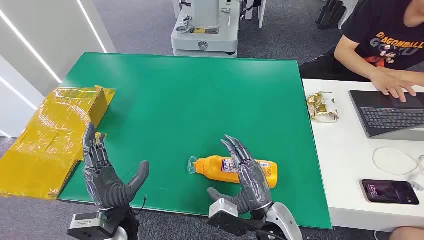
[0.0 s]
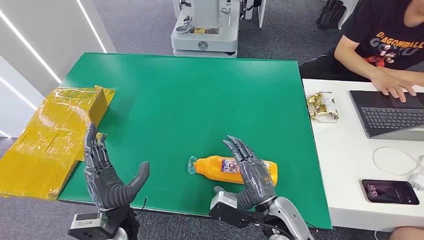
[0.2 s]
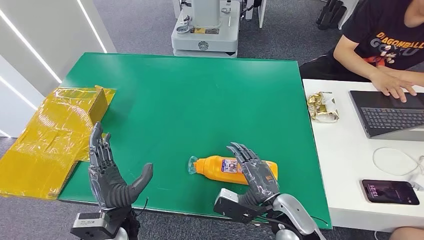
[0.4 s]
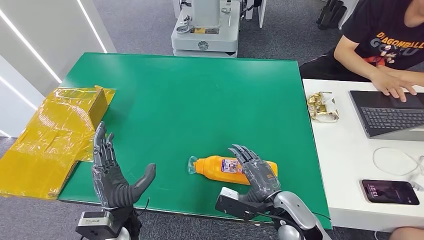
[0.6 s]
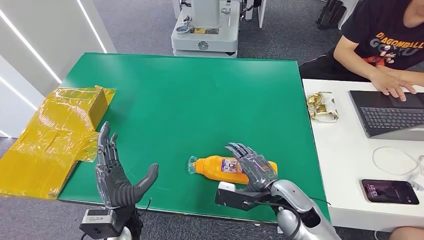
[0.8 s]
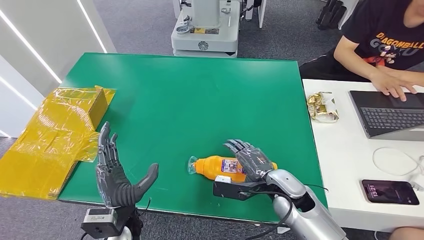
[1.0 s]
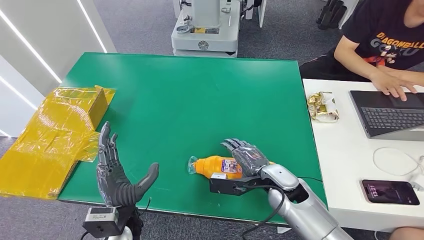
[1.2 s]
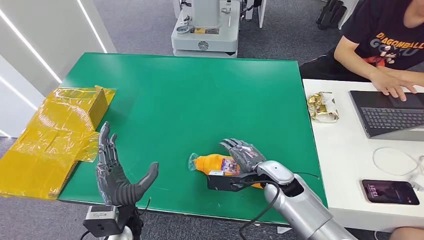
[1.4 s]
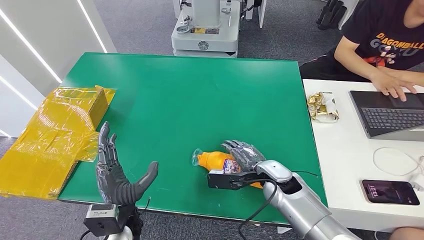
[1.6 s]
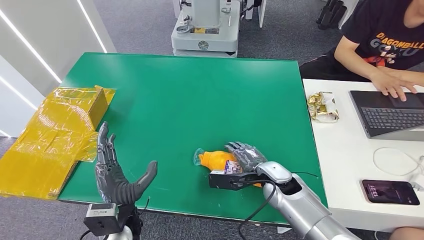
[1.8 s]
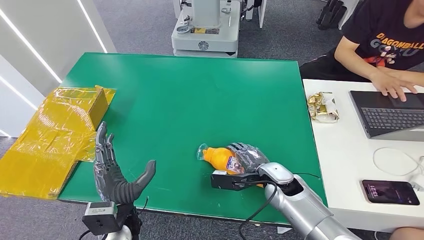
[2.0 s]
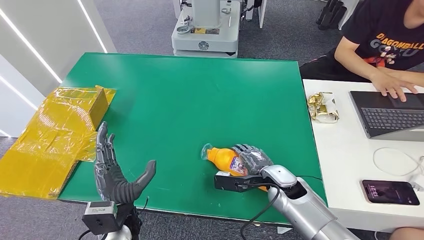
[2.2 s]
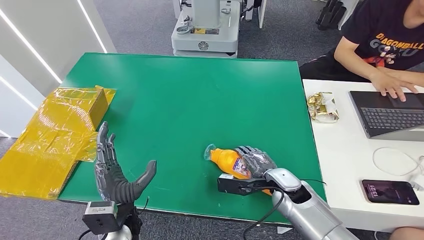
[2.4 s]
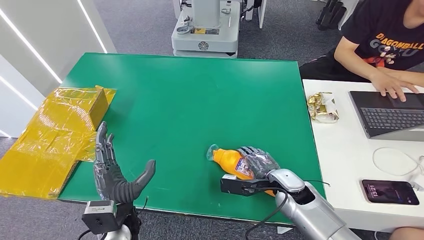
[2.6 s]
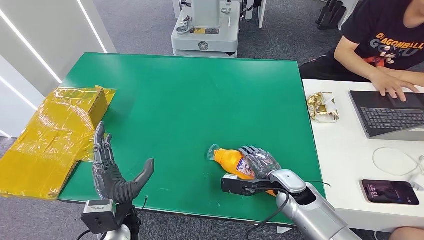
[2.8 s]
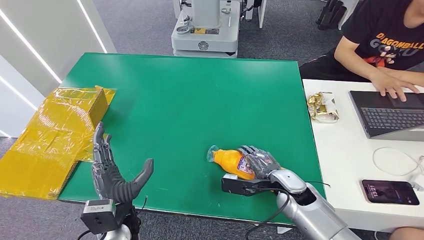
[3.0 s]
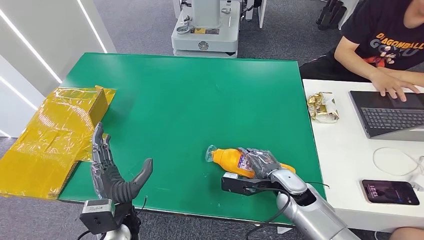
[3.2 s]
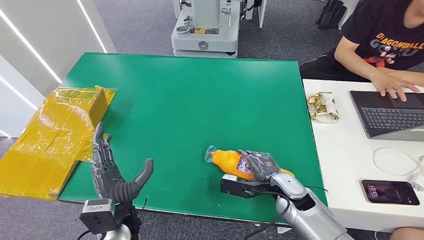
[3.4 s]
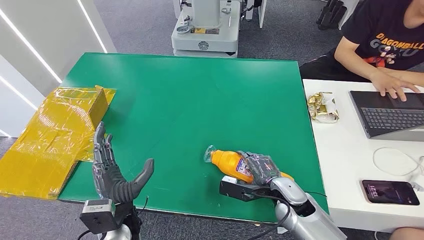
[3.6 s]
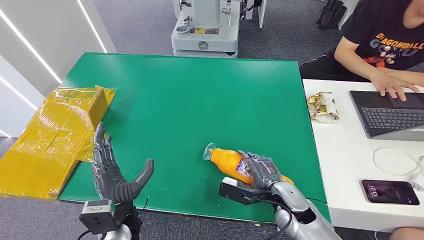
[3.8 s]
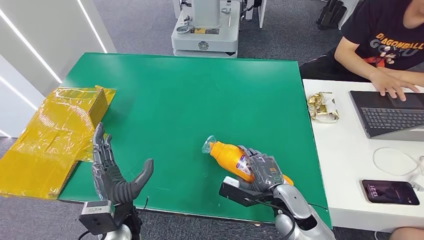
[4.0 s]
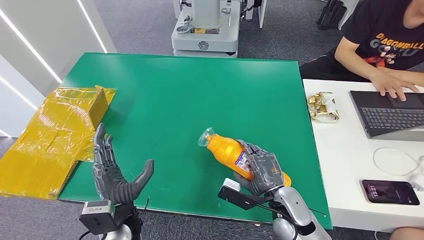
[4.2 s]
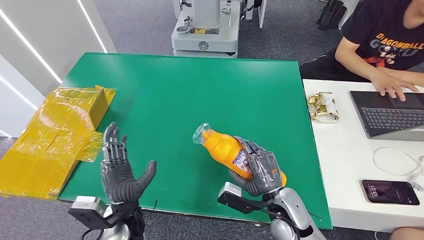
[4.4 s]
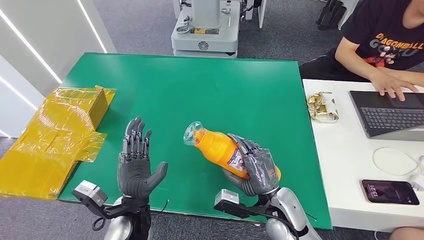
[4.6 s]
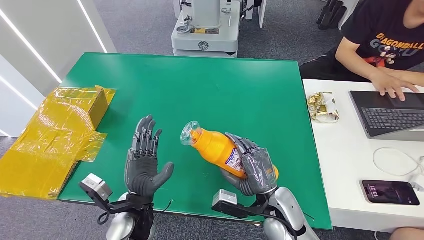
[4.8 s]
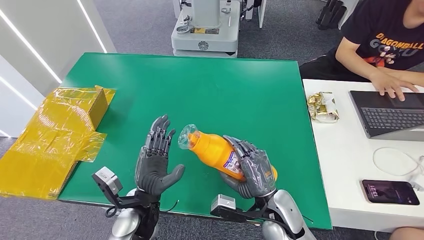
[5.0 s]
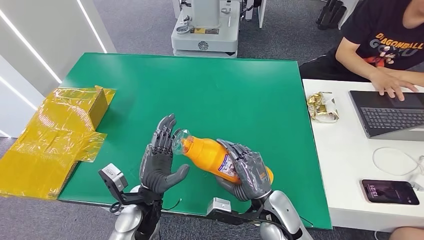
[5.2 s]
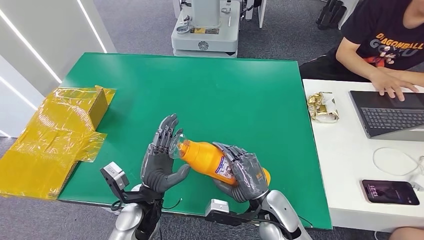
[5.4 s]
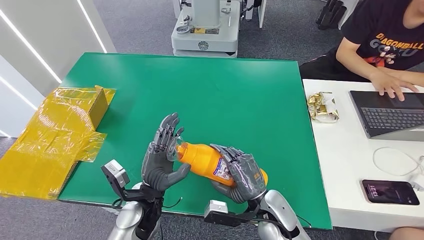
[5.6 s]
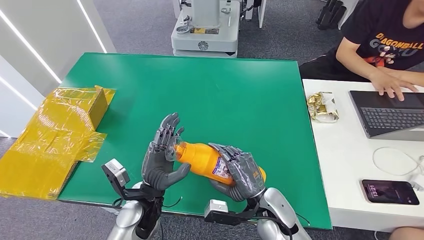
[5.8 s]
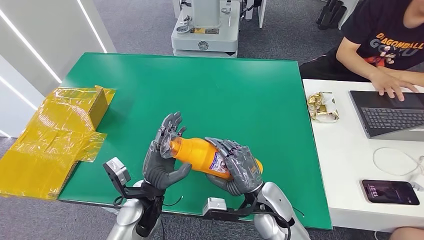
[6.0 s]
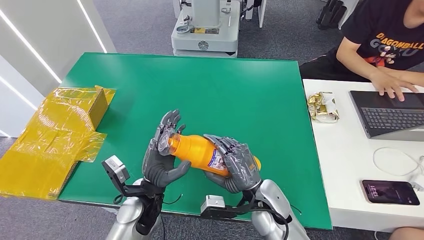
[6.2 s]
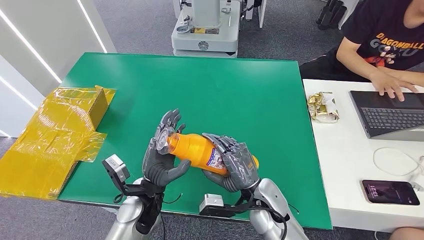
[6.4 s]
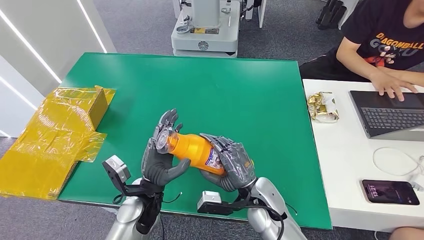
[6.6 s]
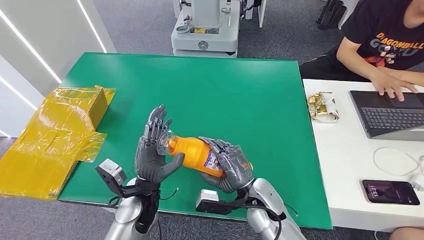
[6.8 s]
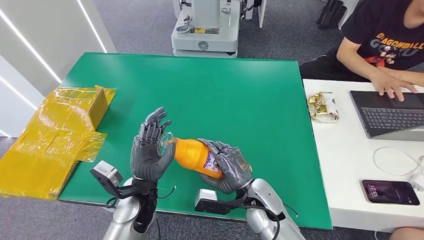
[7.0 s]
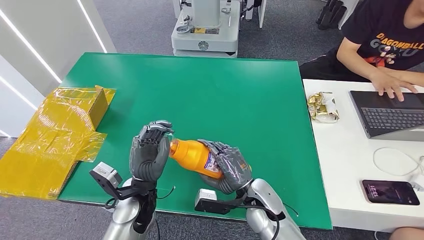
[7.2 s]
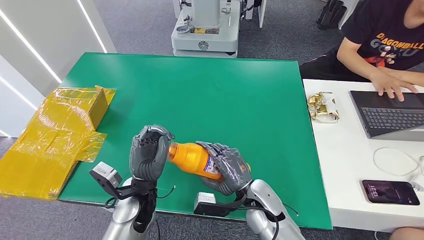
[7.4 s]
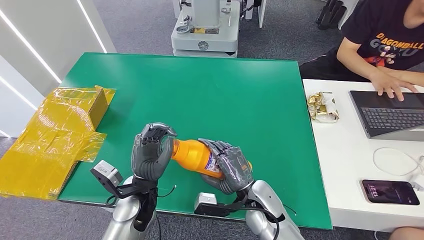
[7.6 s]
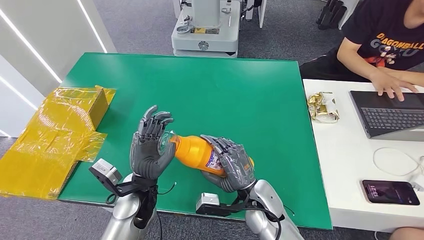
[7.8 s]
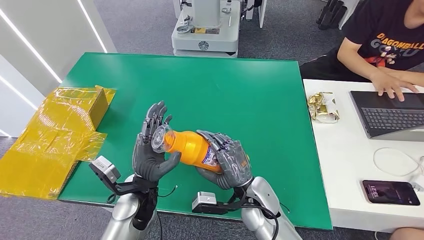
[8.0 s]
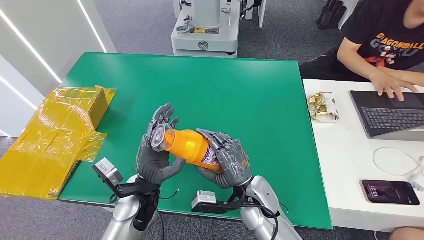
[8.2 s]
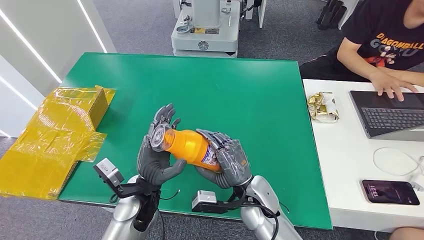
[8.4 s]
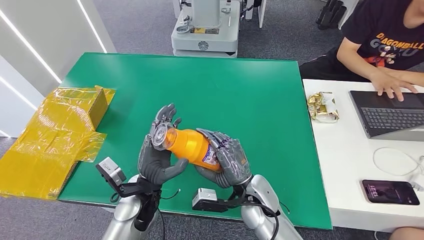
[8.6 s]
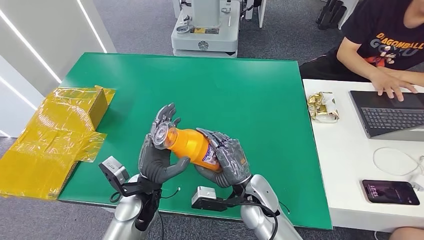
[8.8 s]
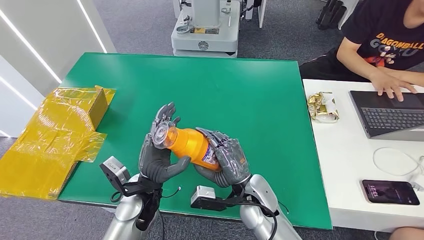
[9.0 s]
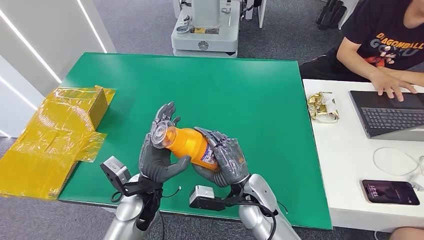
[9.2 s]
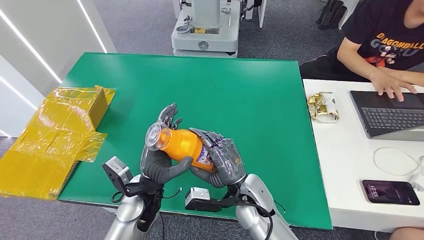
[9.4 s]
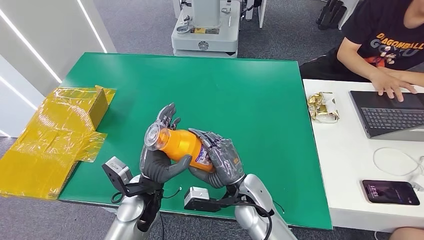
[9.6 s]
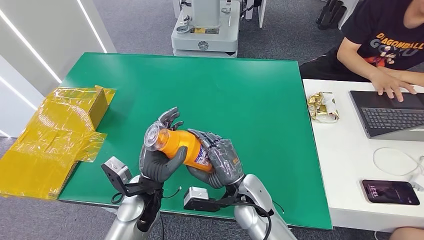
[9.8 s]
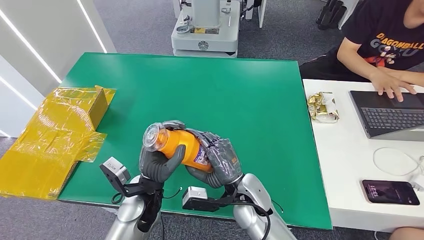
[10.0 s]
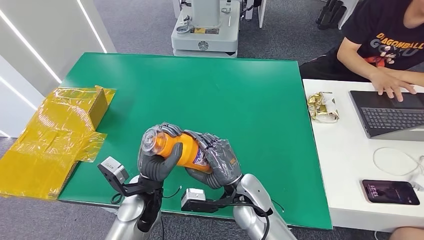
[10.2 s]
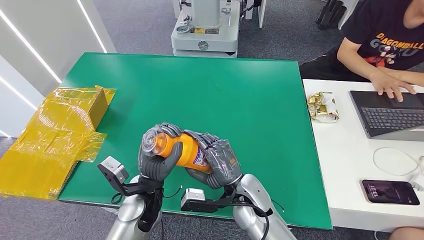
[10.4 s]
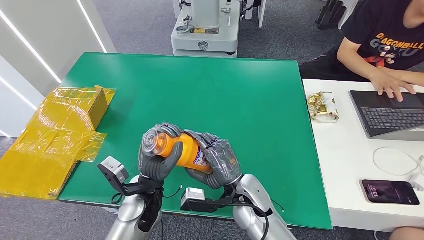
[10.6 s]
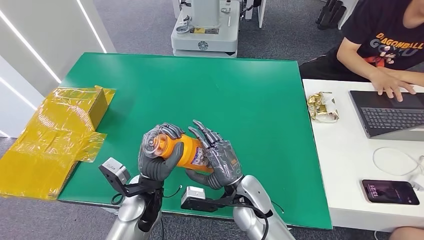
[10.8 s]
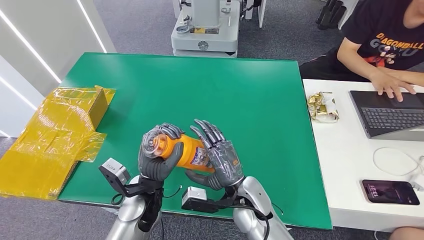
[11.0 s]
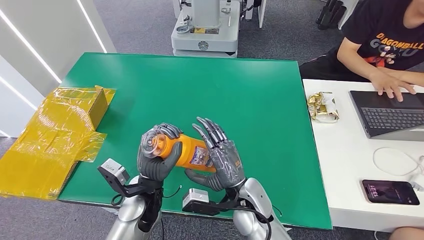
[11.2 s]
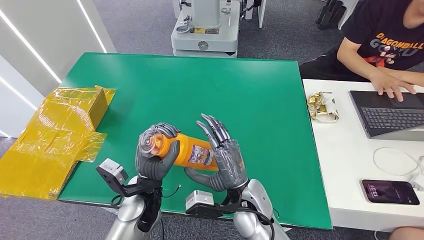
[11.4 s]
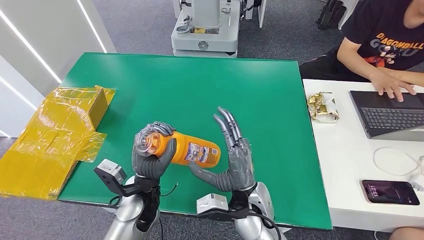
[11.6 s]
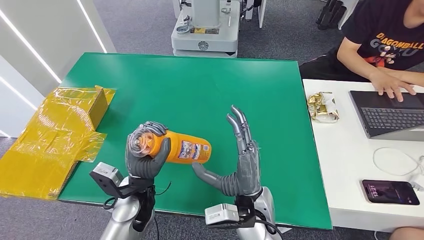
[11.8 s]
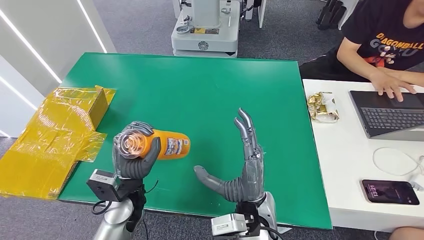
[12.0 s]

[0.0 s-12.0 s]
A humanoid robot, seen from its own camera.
Step, 0.0 to 4.8 s: Pick up the bottle from the table.
1.6 to 3.0 s: The hands move only a little.
3.0 to 4.4 s: The right hand goes approximately 5 cm backward.
4.4 to 6.0 s: The left hand ends up about 5 cm from where it was.
6.0 to 10.4 s: The hands move only a little.
10.4 to 12.0 s: The right hand changes place by roughly 5 cm.

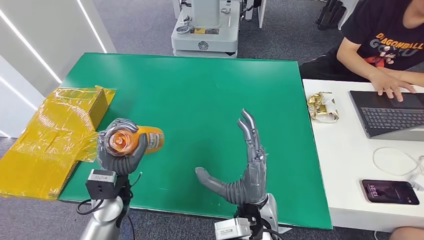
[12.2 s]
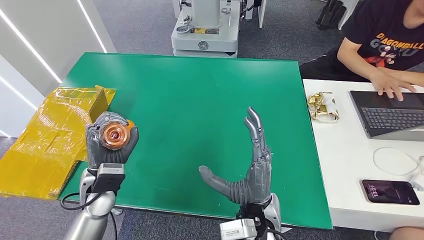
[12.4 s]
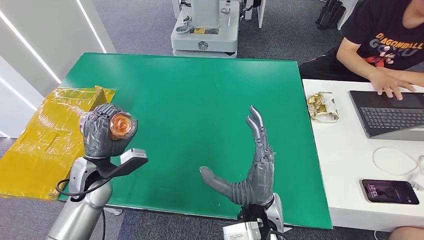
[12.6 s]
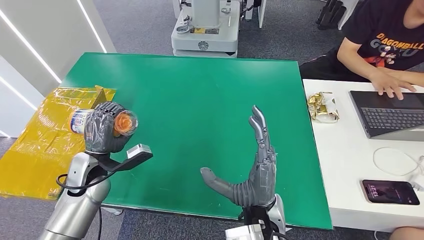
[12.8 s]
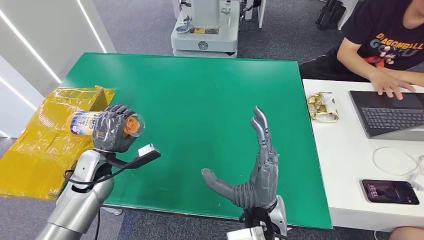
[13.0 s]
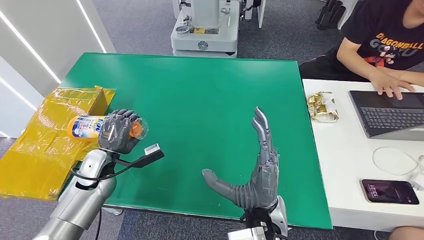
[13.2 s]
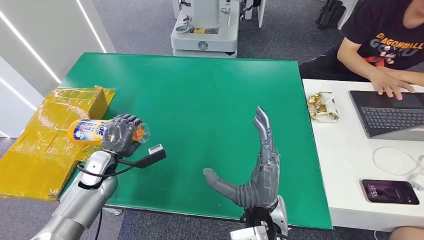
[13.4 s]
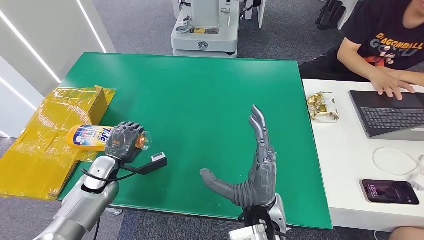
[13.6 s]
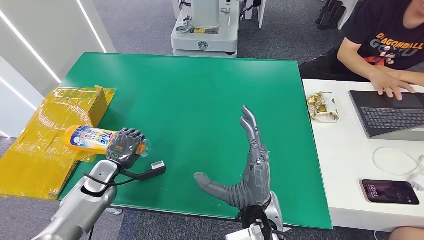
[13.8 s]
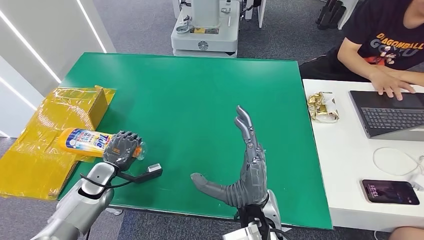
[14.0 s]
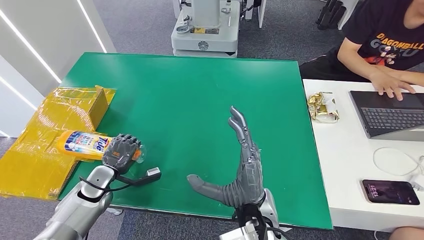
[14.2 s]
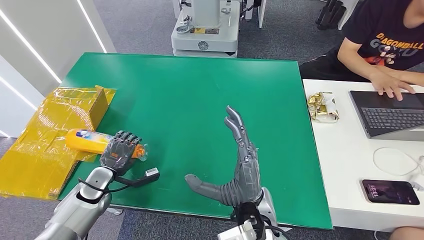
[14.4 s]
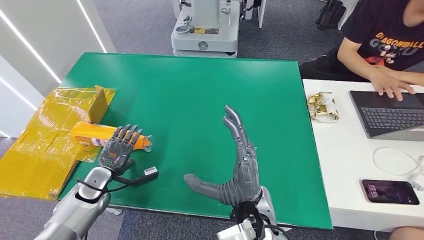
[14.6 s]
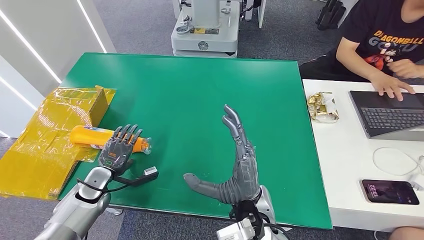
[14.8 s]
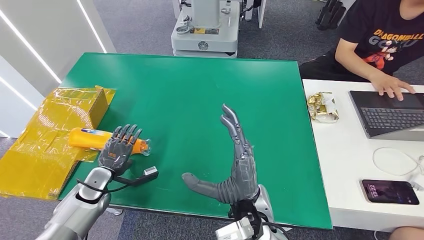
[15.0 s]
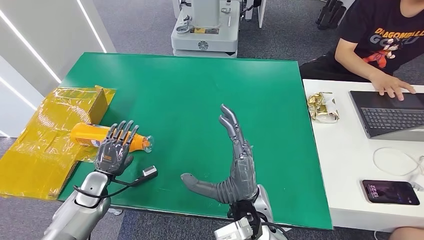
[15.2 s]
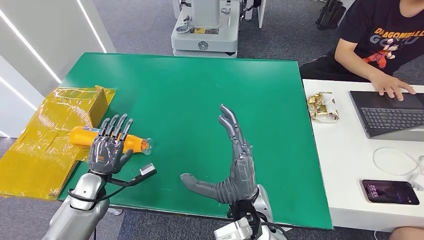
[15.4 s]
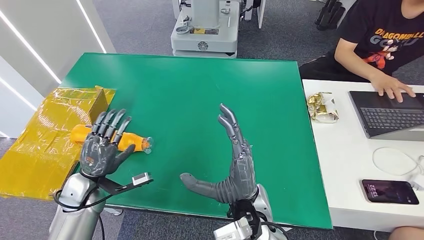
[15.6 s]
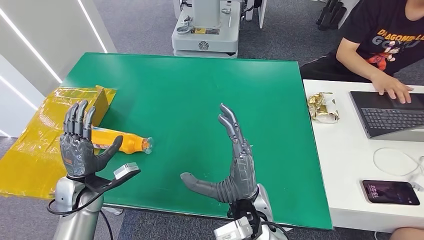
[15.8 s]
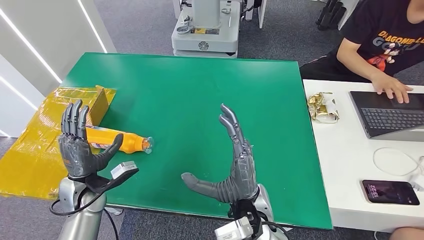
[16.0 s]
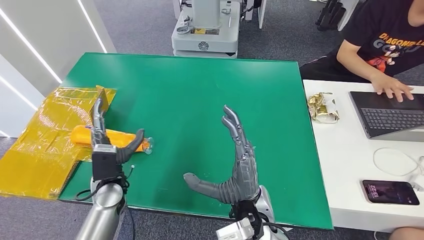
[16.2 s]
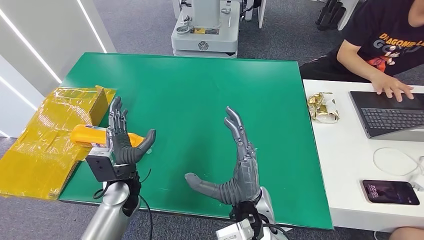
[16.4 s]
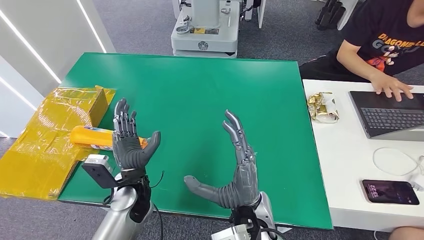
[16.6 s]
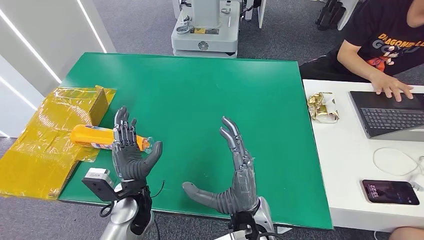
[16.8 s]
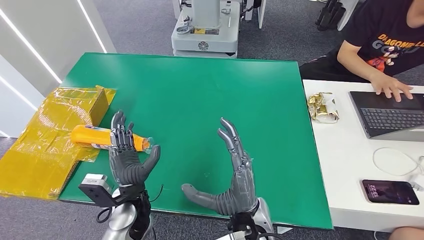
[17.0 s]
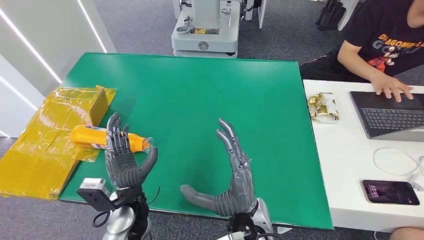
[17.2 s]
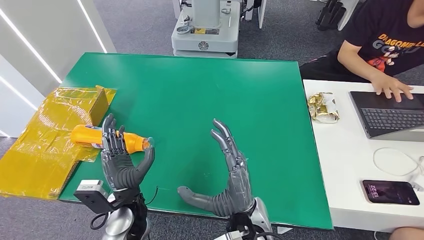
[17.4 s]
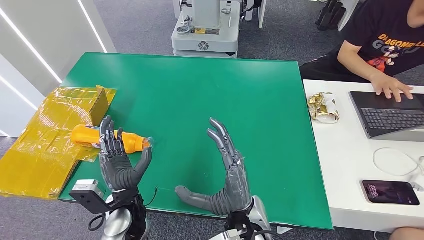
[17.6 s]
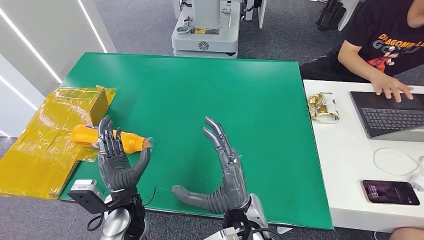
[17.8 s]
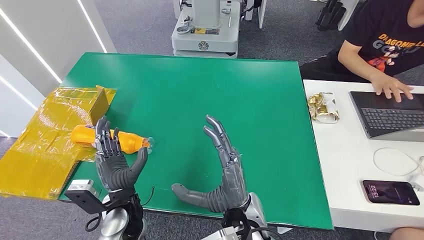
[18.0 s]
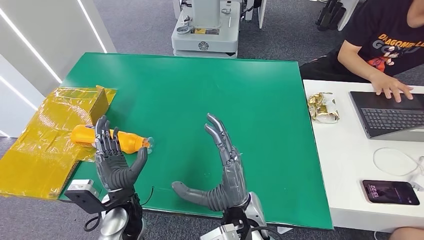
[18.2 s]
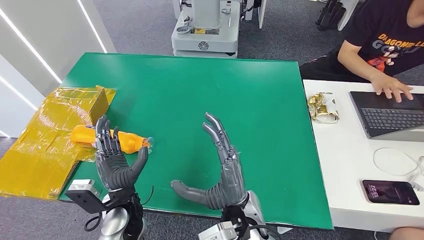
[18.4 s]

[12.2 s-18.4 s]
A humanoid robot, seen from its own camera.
Step, 12.2 to 18.4 s: Turn the bottle to the front side.
12.2 to 13.8 s: The left hand moves to the left, downward and forward, about 15 cm.
15.4 to 16.8 s: The left hand goes about 15 cm to the right.
16.8 to 18.4 s: The hands make only small movements.
